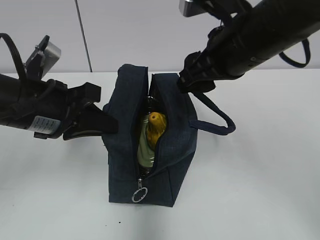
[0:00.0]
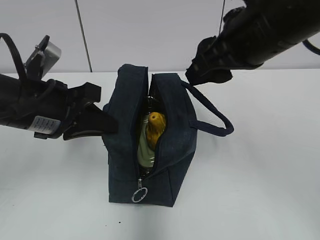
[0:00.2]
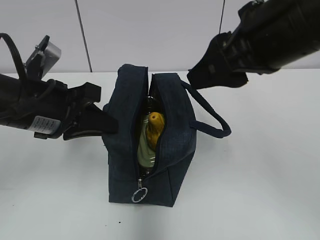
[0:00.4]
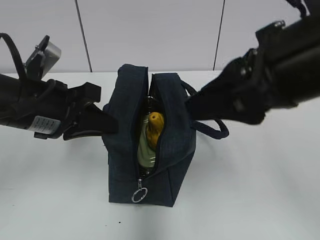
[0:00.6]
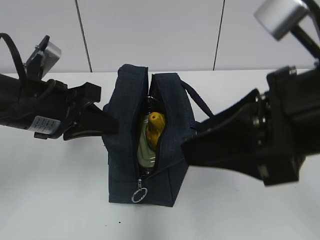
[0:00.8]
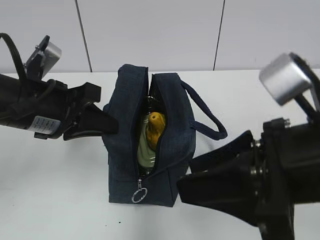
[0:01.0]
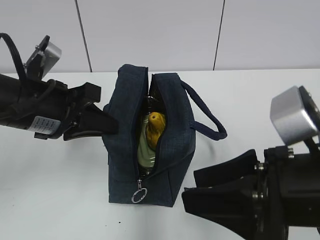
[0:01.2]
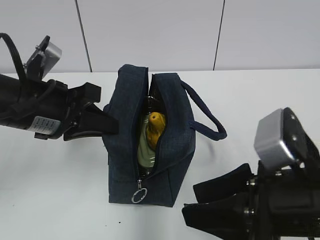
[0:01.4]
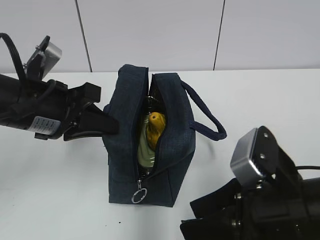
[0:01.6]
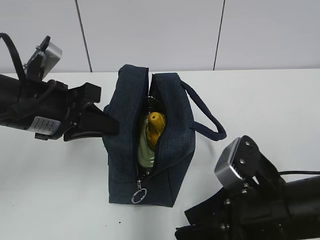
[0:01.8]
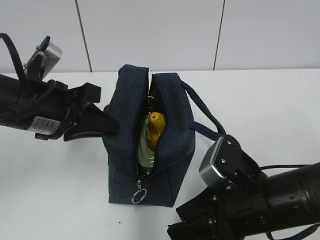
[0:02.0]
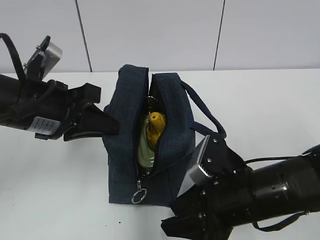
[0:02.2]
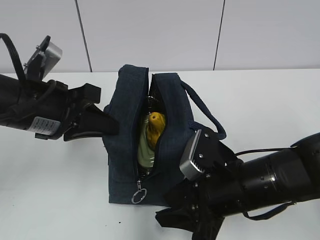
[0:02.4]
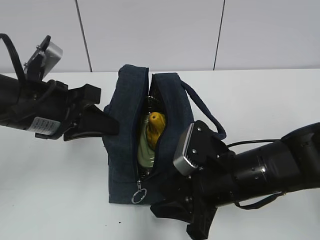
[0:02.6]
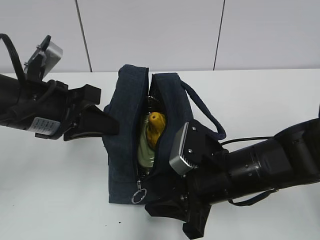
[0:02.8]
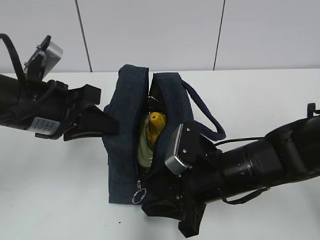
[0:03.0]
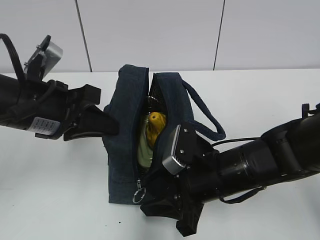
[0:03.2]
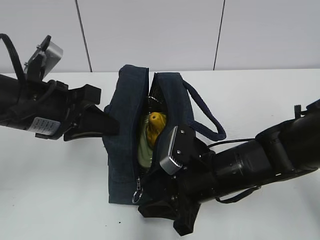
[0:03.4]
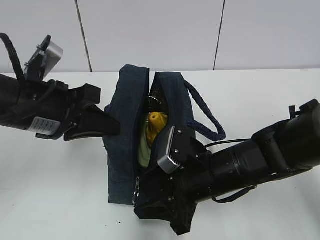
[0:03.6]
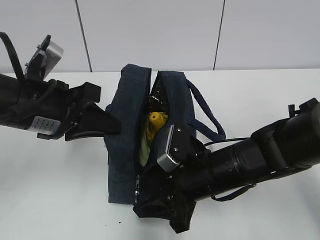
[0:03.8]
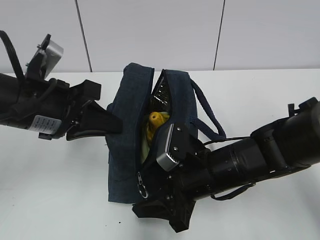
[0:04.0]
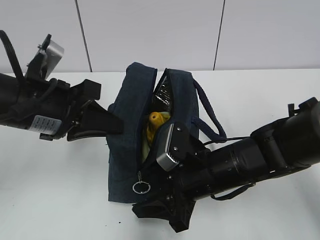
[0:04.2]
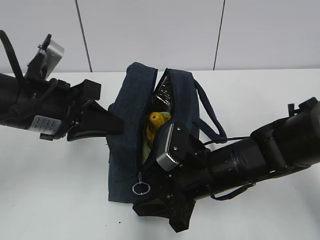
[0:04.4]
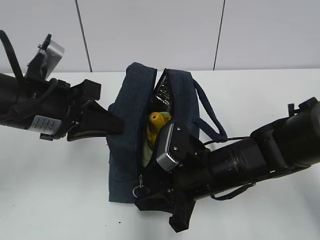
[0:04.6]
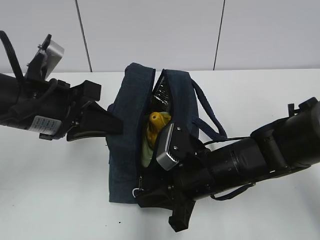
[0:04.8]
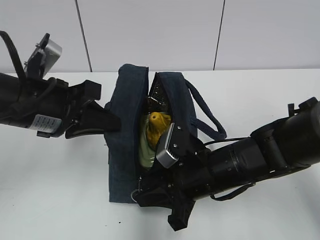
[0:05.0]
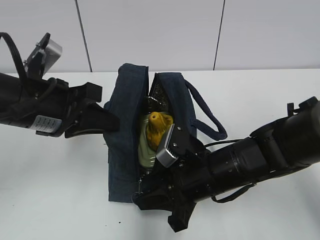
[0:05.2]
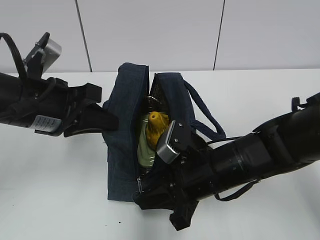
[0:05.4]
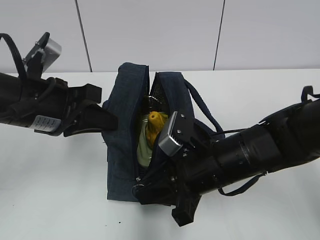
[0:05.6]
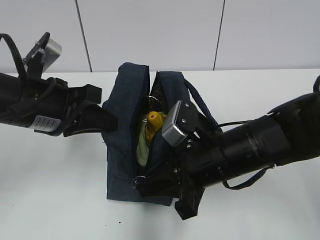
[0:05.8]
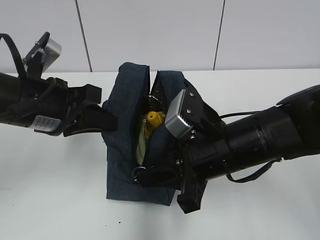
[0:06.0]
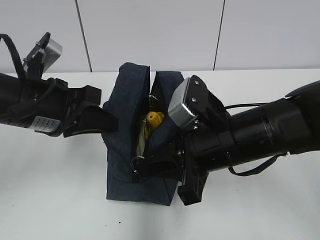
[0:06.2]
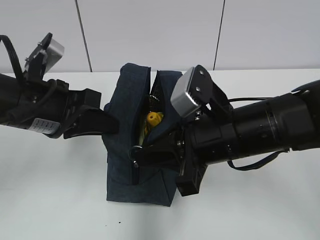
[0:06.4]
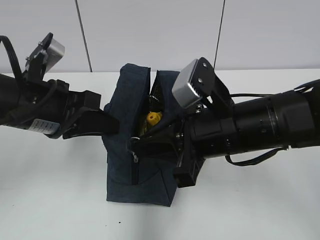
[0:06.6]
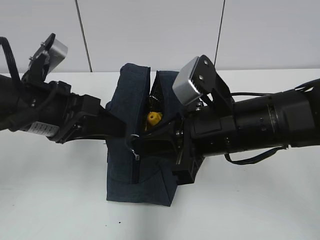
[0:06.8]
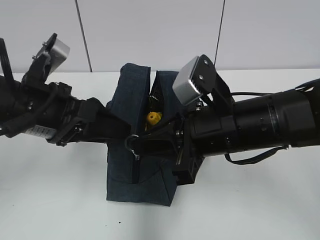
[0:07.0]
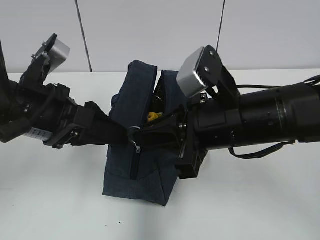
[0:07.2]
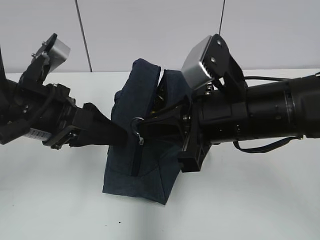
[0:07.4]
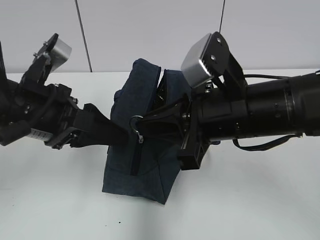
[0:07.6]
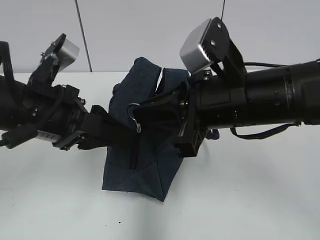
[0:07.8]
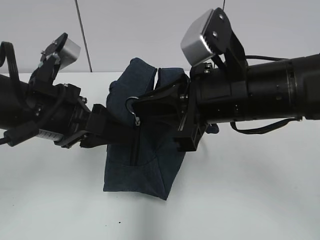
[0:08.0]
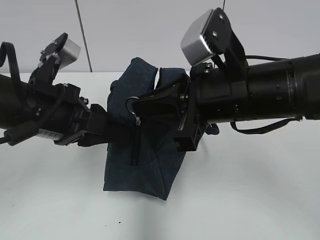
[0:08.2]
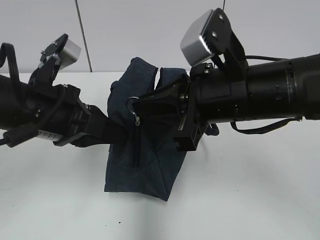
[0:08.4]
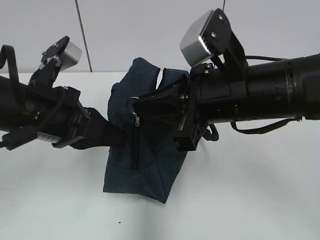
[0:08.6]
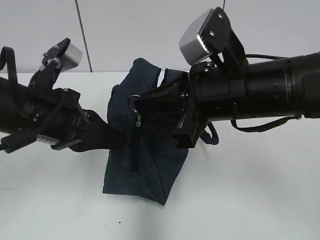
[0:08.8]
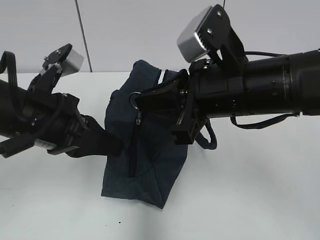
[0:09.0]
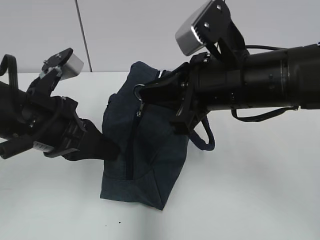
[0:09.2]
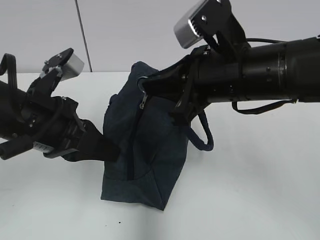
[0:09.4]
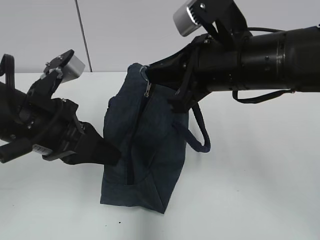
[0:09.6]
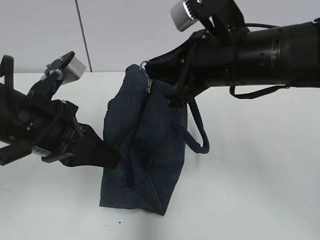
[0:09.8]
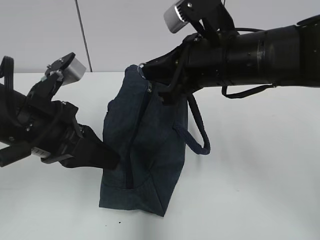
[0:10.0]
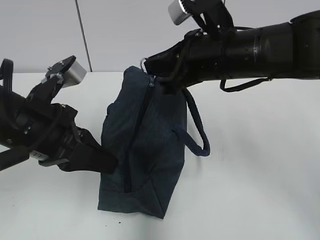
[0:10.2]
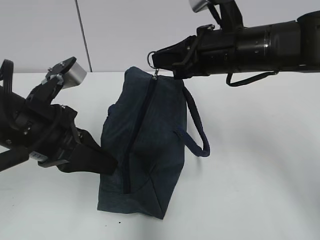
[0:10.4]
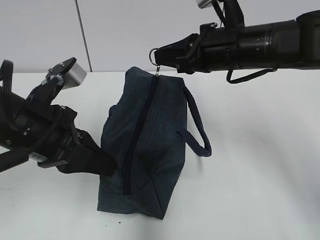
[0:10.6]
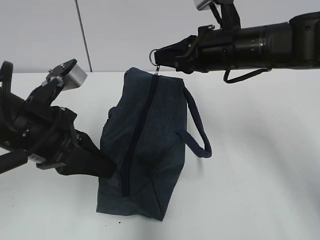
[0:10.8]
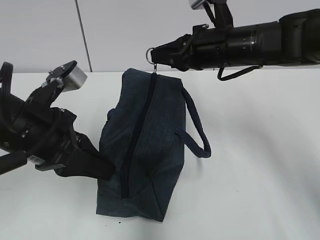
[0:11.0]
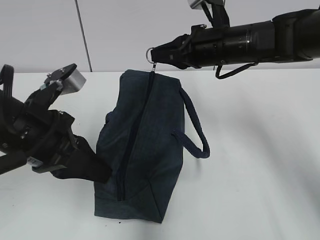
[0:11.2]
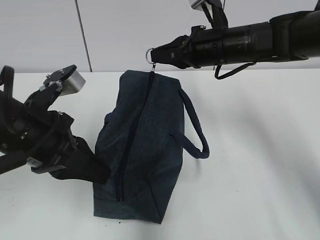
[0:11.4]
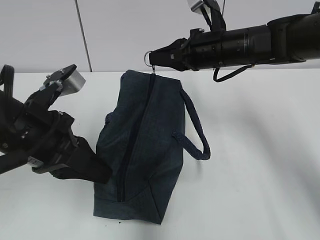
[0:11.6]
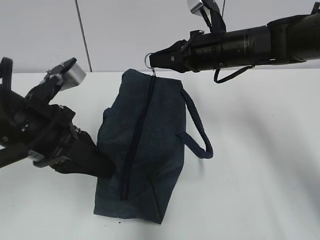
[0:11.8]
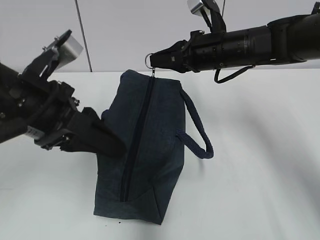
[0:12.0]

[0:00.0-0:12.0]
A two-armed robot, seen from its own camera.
0:00.0 to 0:01.6: The right gripper goes some 20 cm backward and downward.
0:01.6 to 0:03.0: The right gripper travels forward and downward by approximately 10 cm.
0:03.0 to 0:04.4: The grippers stay close to where they were, moving slightly.
0:04.4 to 0:06.0: The right gripper moves upward, some 5 cm, and closes its fingers.
0:06.0 to 0:07.6: The left gripper opens up; the right gripper travels upward by approximately 5 cm.
0:07.6 to 0:09.0: The left gripper closes.
0:09.0 to 0:10.4: The right gripper shifts some 10 cm forward.
0:10.4 to 0:12.0: The right gripper goes some 10 cm forward. The left gripper opens.

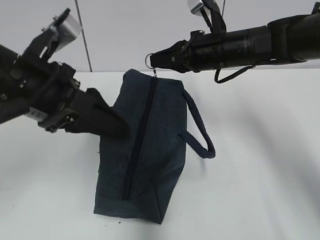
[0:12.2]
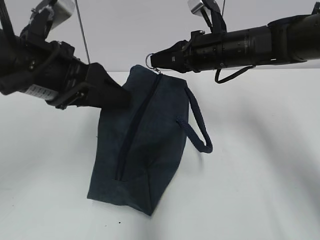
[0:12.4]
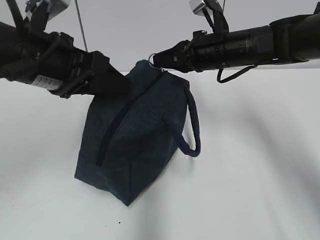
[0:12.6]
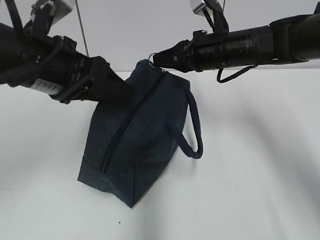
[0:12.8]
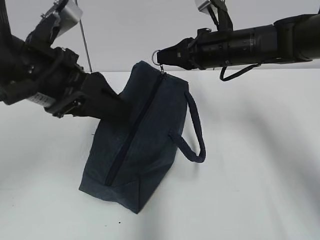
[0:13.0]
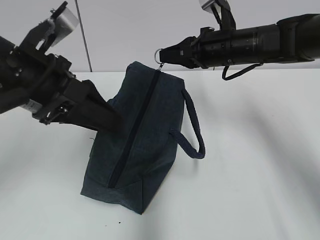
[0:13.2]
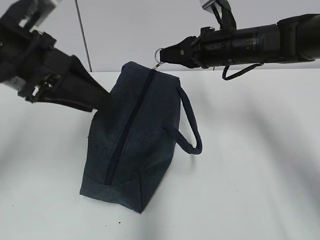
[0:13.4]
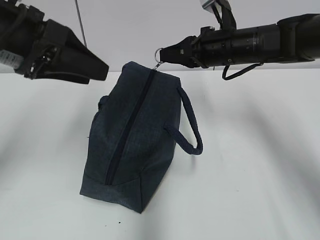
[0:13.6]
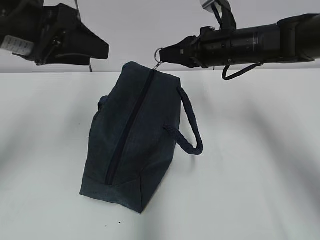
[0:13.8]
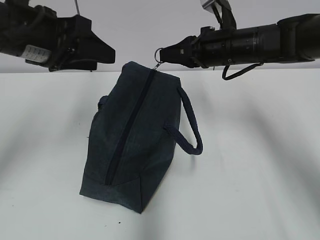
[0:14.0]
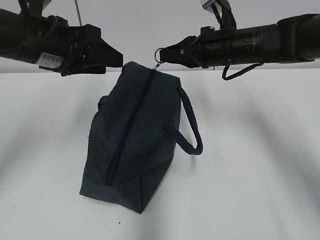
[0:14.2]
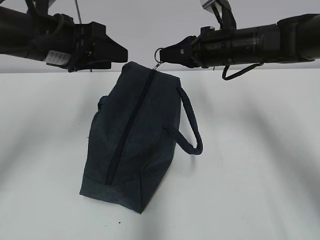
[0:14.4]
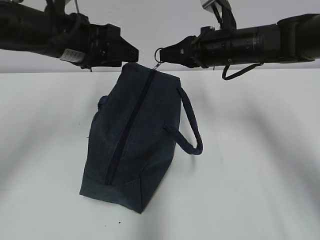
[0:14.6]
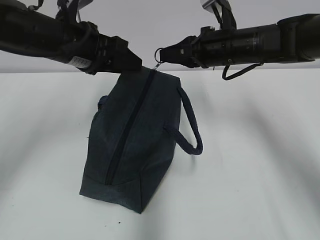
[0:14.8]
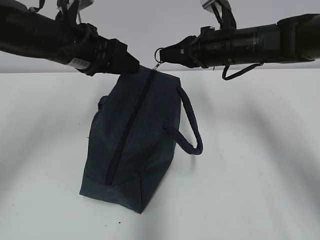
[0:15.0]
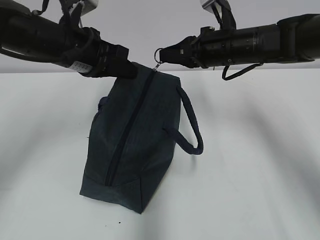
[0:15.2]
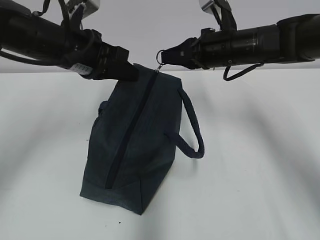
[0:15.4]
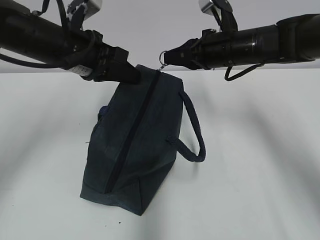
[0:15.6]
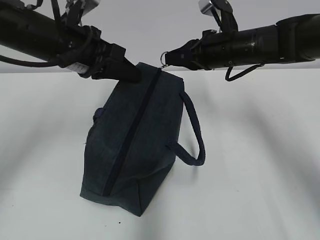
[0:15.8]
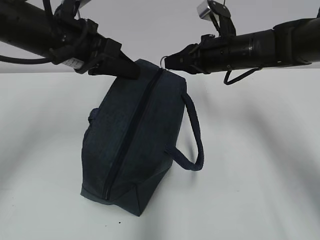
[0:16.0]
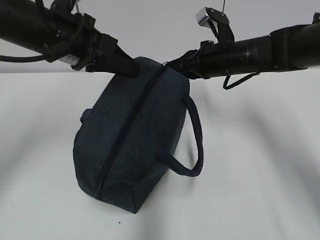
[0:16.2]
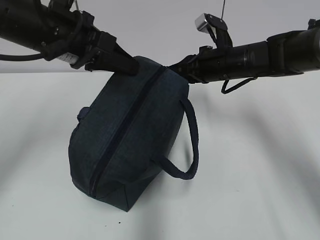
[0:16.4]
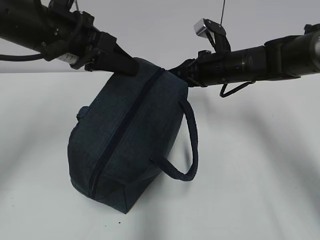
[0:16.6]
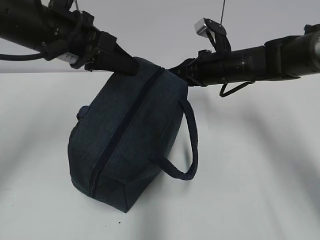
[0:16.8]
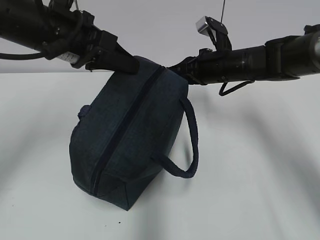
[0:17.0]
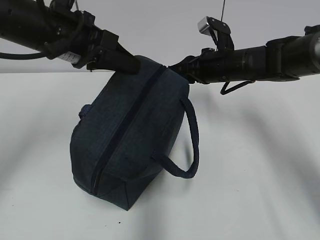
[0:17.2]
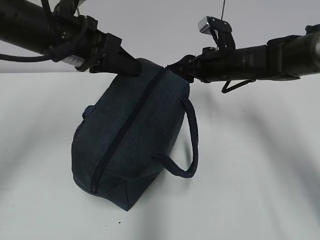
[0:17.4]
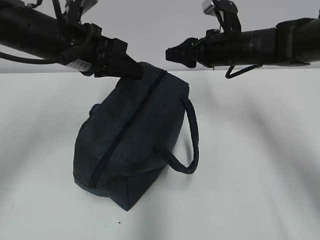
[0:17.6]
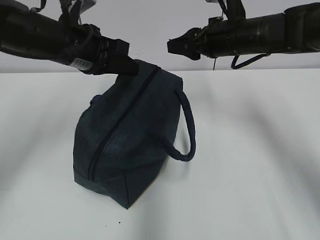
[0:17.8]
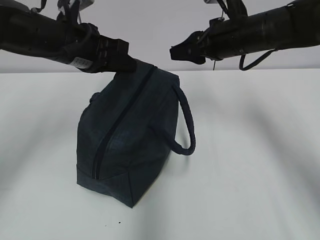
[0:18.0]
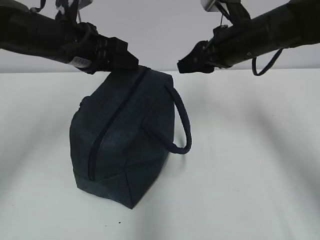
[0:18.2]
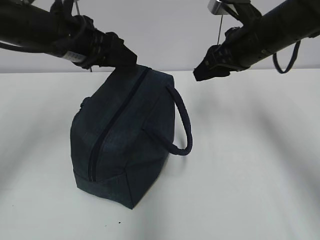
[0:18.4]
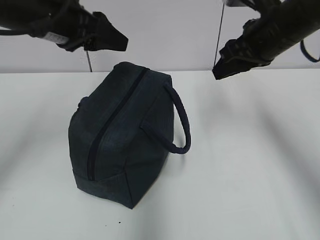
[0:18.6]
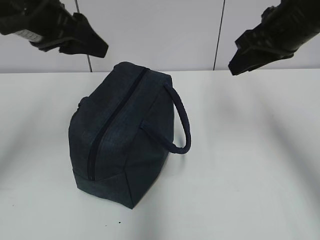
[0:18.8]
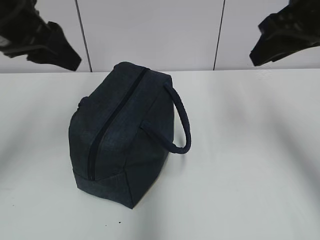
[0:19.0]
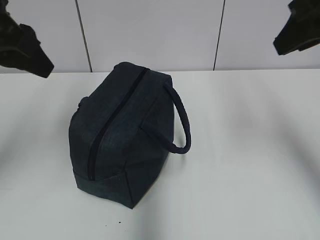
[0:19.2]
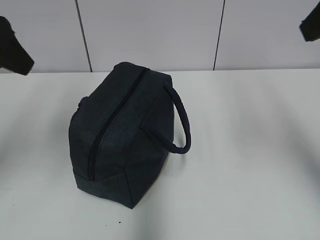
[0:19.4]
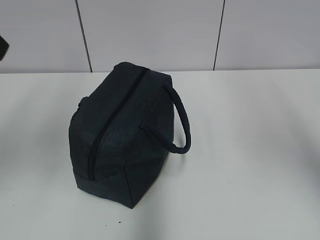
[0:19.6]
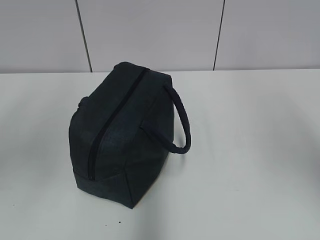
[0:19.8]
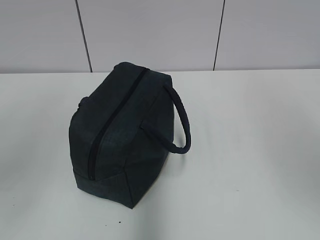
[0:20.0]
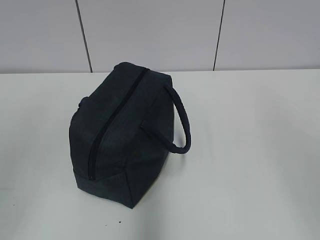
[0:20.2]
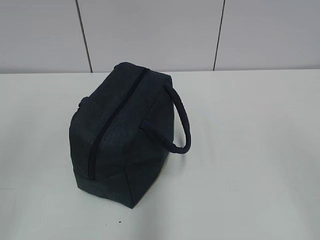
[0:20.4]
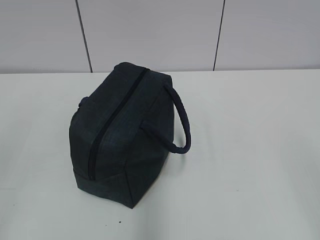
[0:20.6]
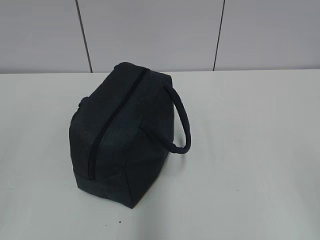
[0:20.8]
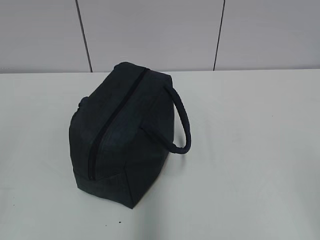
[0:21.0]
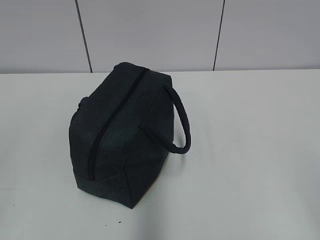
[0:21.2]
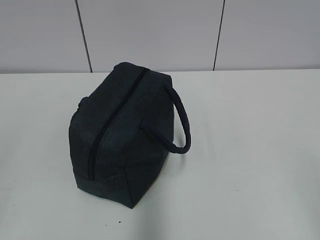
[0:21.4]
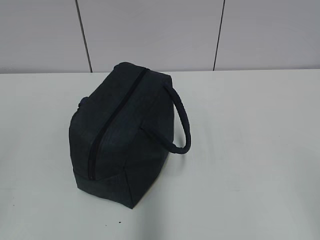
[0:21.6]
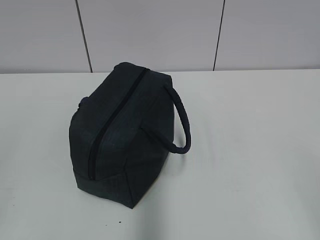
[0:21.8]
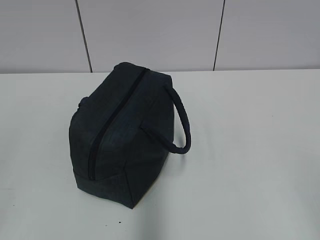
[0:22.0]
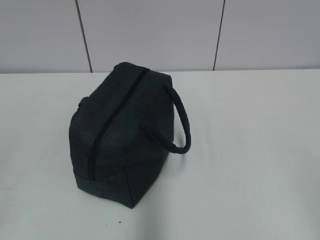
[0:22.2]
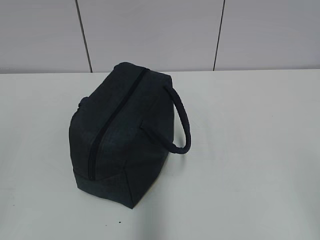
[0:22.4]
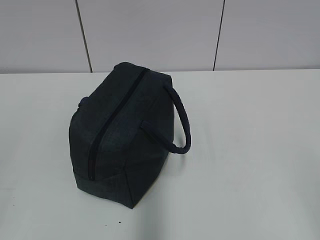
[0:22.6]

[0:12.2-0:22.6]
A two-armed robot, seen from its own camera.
Step, 0:12.2 to 0:17.2: Pull the zipper with your right hand.
Step, 0:17.6 to 0:18.2: Grab the lunch bag with your left hand.
0:12.2 to 0:13.6: The left gripper ends up approximately 5 cm from where it was.
0:13.6 to 0:15.2: The left gripper shifts approximately 10 cm forward and downward, and closes up.
0:15.2 to 0:16.6: The right gripper moves approximately 5 cm, while the left gripper moves approximately 5 cm.
0:16.6 to 0:18.2: The right gripper travels upward by some 5 cm, and opens its fingers. Meanwhile the left gripper ends up about 5 cm from where it was, and opens up.
0:18.2 to 0:19.6: The left gripper goes approximately 20 cm backward, upward and to the left. Meanwhile the right gripper travels backward and upward by some 30 cm.
0:19.6 to 0:21.2: The right gripper goes approximately 25 cm backward and downward.
0:21.2 to 0:22.6: Neither gripper changes place.
